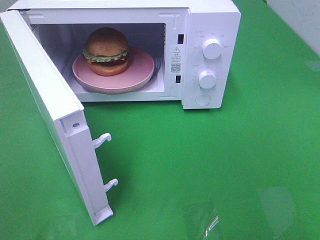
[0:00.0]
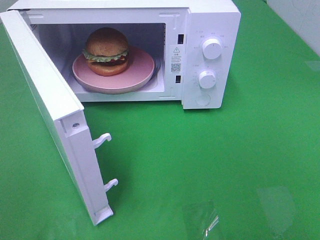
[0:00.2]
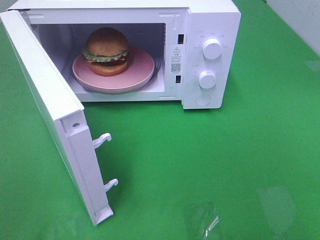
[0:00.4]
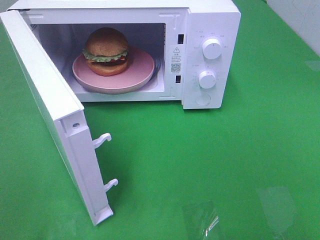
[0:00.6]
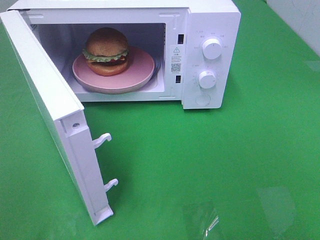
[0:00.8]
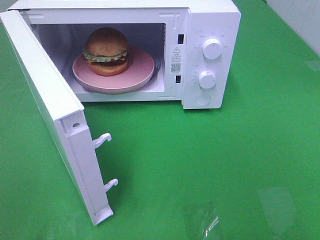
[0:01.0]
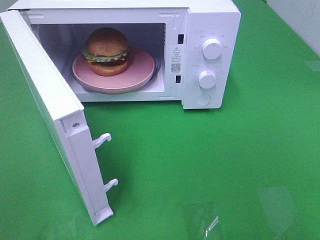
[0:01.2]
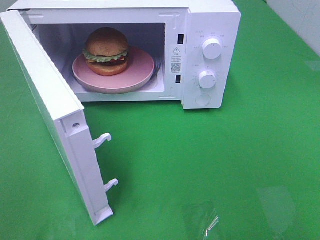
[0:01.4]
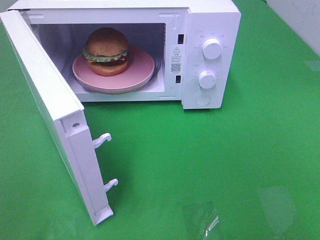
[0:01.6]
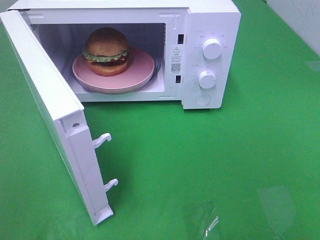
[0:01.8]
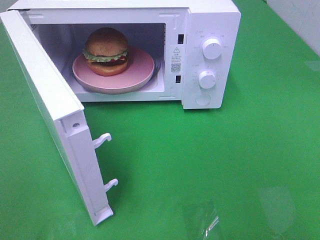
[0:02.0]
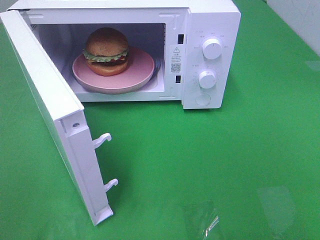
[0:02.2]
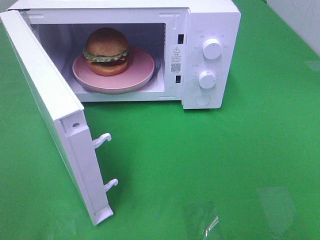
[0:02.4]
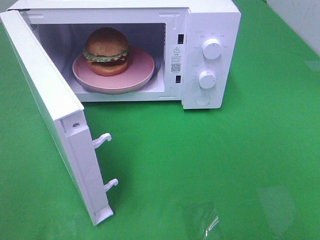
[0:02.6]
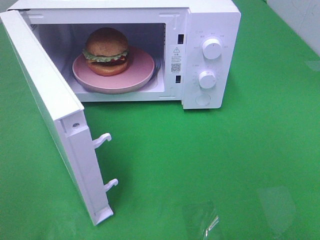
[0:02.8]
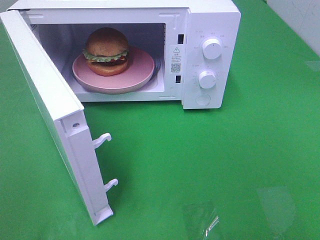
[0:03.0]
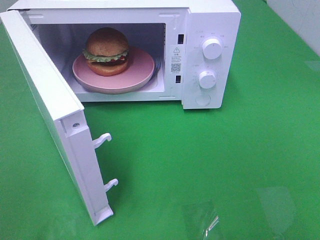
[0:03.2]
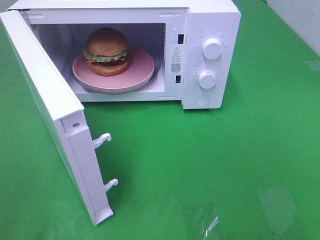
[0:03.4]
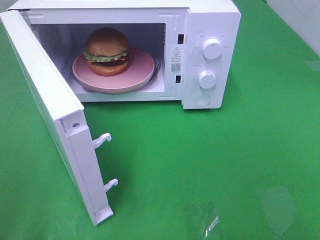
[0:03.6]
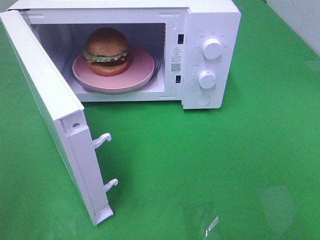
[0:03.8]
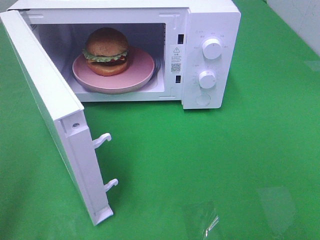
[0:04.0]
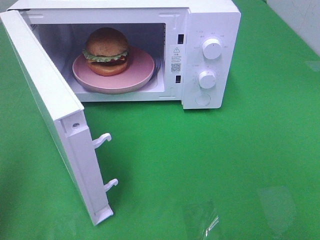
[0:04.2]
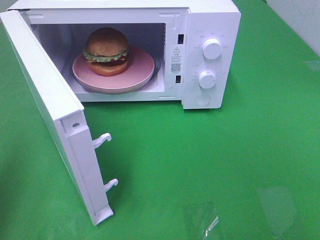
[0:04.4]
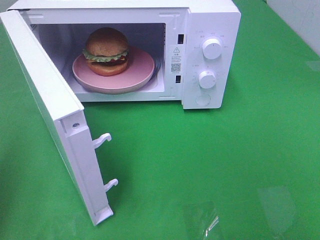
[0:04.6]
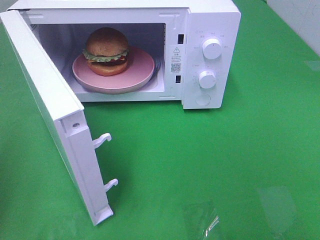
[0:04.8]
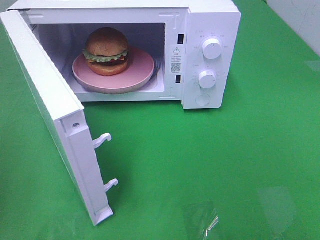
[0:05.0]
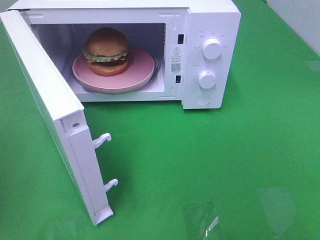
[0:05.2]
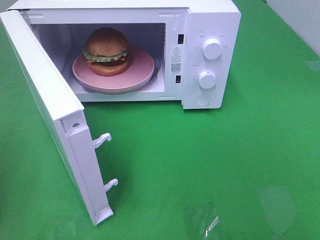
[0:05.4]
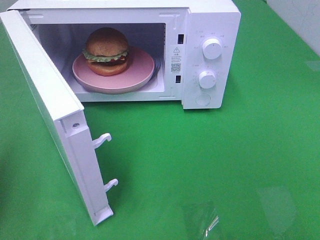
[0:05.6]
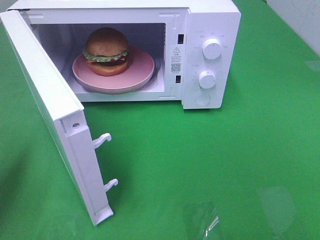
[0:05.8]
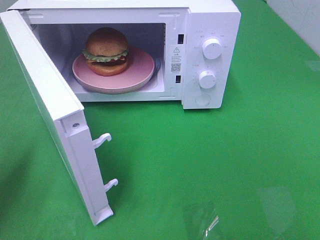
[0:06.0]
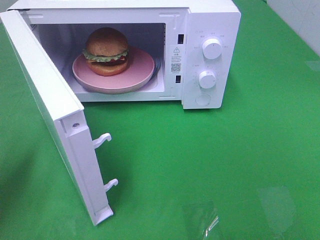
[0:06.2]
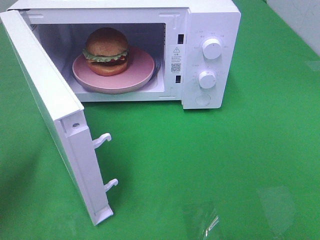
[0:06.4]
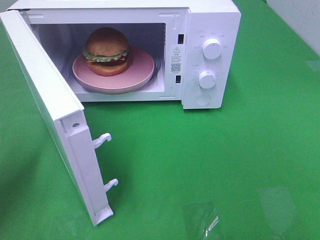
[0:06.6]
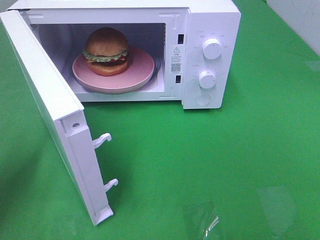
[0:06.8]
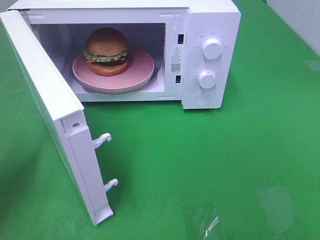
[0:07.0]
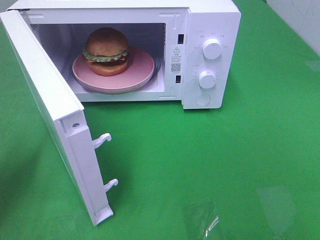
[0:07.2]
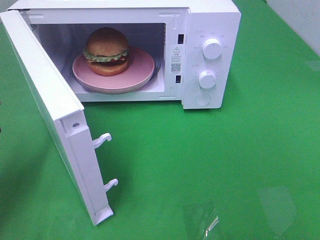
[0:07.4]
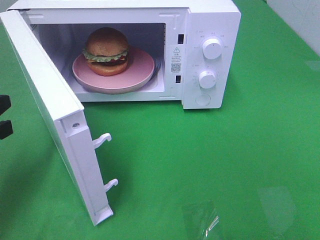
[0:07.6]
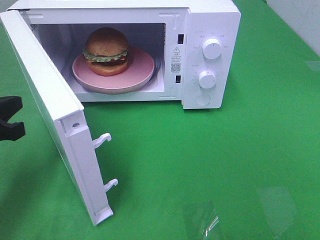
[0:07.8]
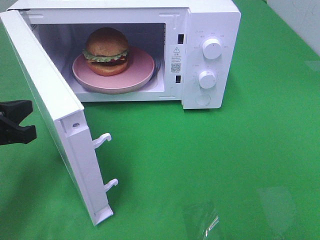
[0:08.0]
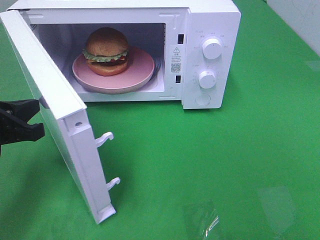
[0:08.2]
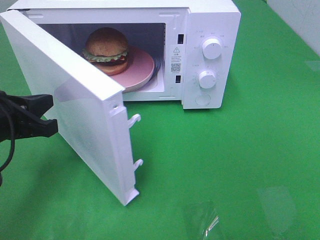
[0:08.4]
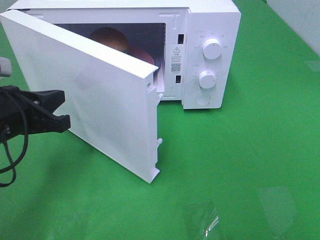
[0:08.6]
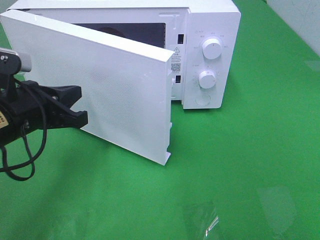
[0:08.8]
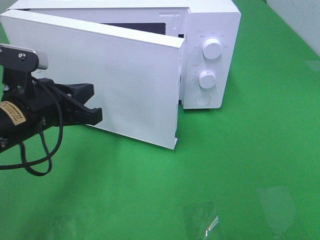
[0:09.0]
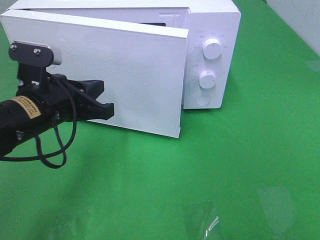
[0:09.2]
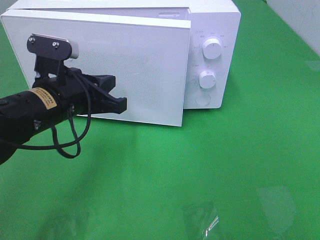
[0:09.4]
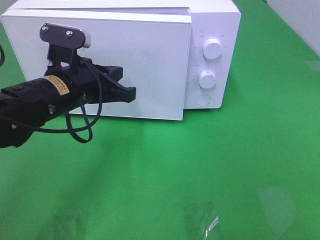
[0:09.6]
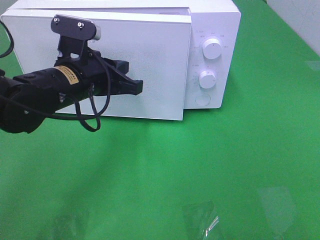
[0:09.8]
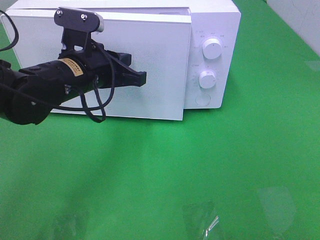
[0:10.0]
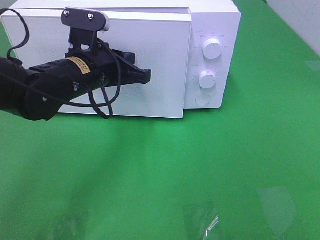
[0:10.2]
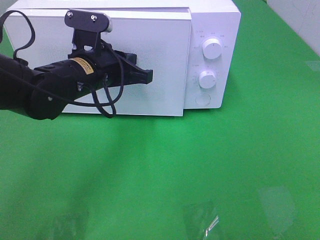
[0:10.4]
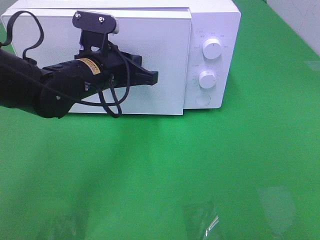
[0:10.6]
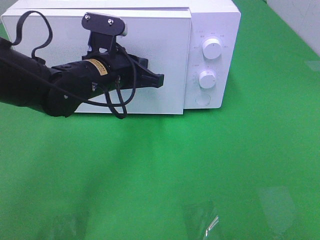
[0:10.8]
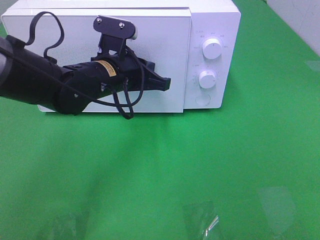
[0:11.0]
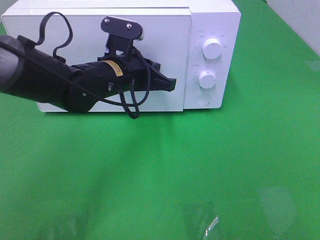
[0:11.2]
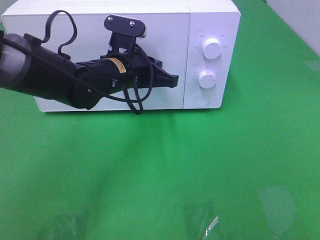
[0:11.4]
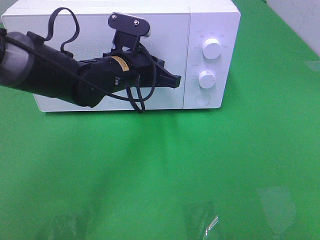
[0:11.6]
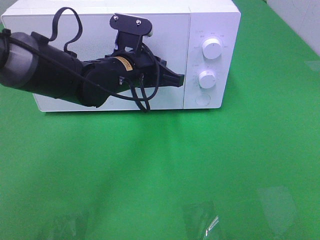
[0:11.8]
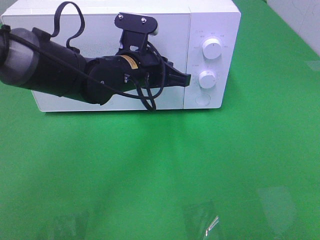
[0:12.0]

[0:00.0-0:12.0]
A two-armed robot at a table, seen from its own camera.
Task of the whole recording: Heat the burger.
Step, 0:00.0 to 0:12.0: Left hand: close the microwave door.
0:01.6 to 0:03.0: Both grippers stay put.
0:03.0 to 0:04.4: The left gripper travels forward by about 10 cm, and closes up.
0:06.0 to 0:07.6: The grippers make only small movements.
0:07.6 to 0:09.0: The left gripper goes approximately 10 cm to the right.
0:09.0 to 0:10.4: The left gripper goes some 10 cm forward and to the right.
0:10.4 to 0:12.0: The left gripper goes about 5 cm to the right.

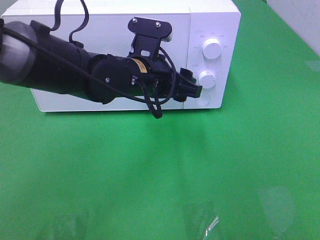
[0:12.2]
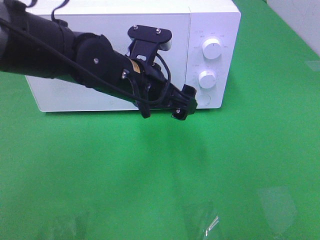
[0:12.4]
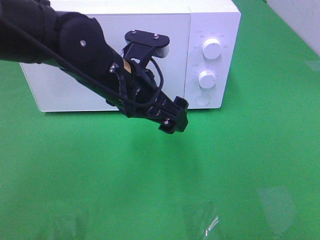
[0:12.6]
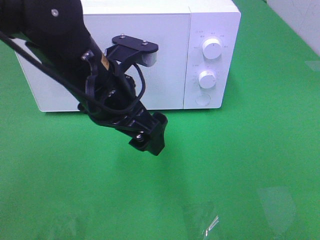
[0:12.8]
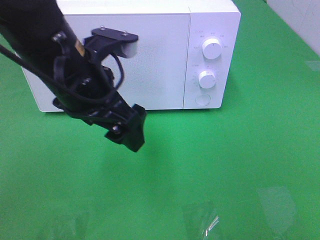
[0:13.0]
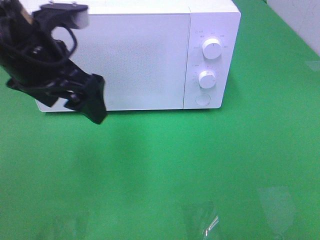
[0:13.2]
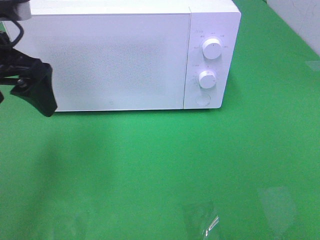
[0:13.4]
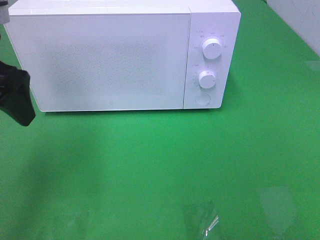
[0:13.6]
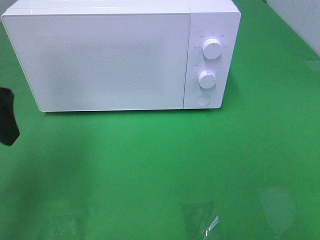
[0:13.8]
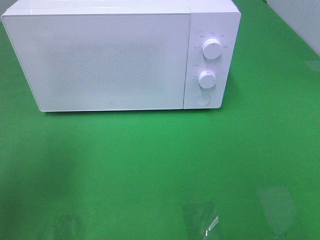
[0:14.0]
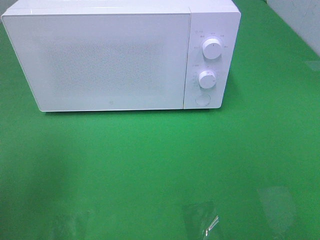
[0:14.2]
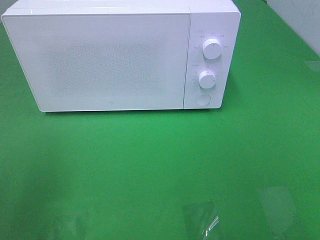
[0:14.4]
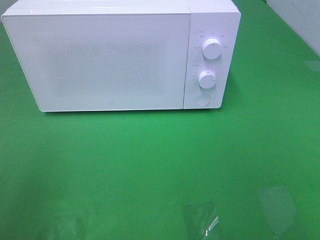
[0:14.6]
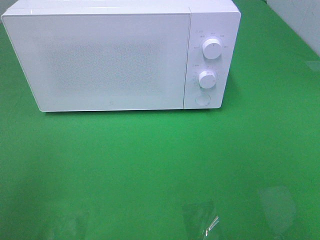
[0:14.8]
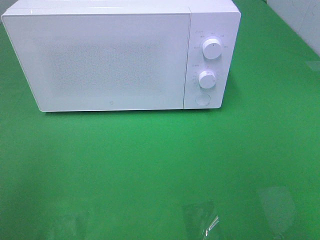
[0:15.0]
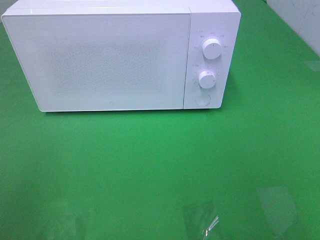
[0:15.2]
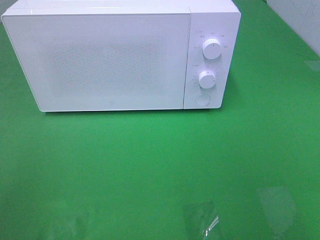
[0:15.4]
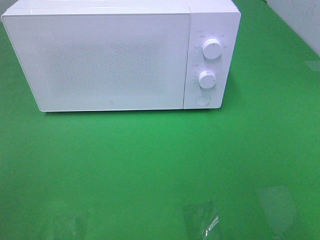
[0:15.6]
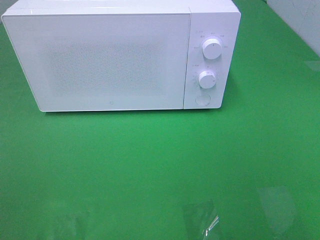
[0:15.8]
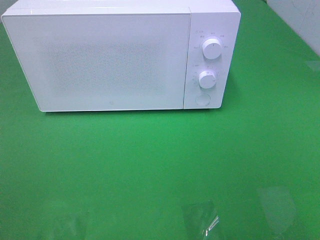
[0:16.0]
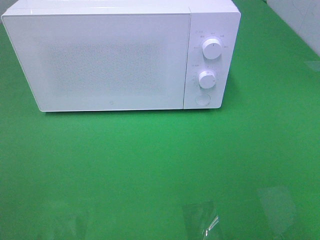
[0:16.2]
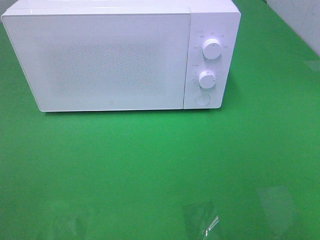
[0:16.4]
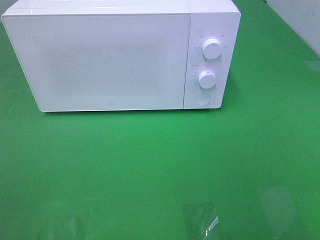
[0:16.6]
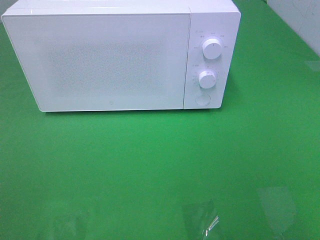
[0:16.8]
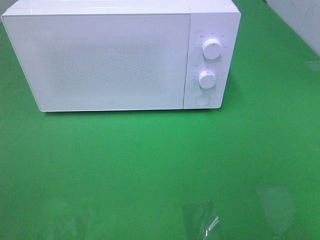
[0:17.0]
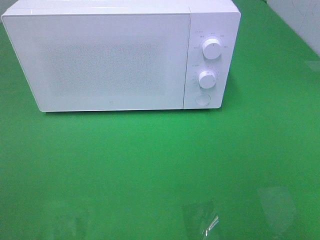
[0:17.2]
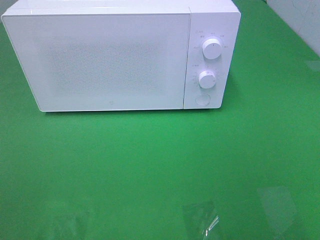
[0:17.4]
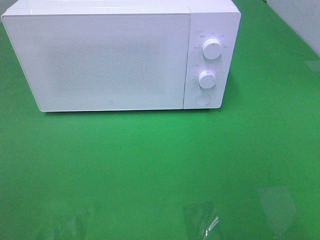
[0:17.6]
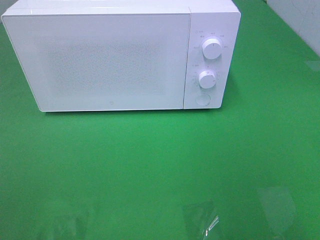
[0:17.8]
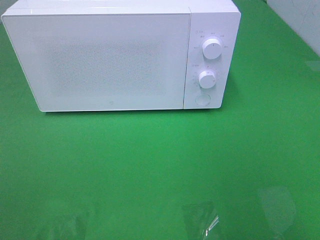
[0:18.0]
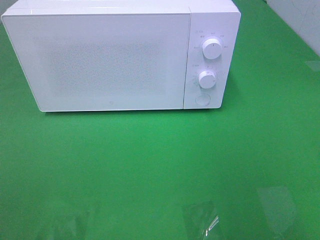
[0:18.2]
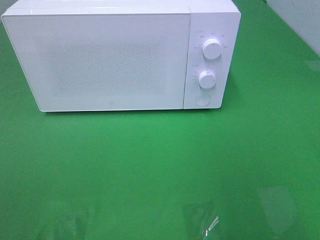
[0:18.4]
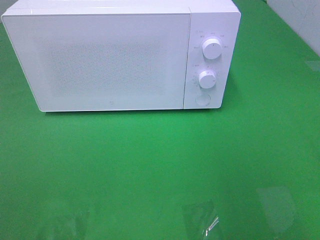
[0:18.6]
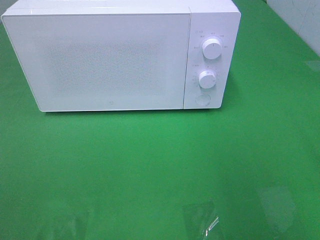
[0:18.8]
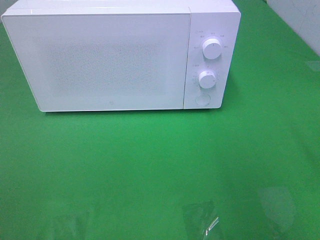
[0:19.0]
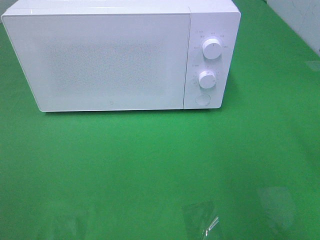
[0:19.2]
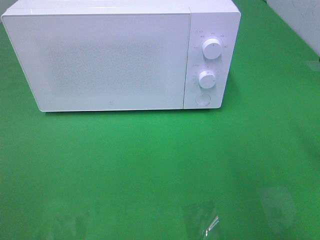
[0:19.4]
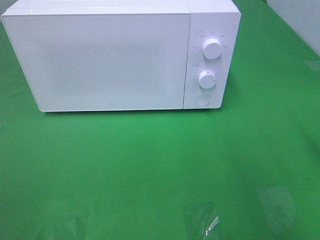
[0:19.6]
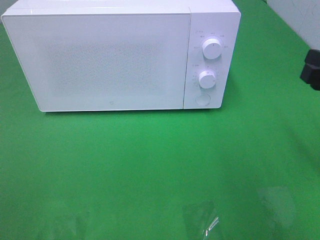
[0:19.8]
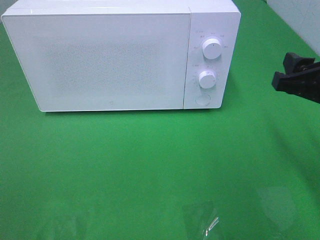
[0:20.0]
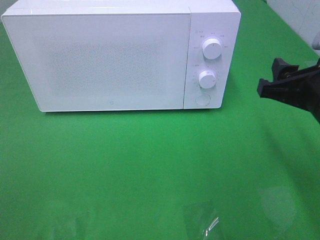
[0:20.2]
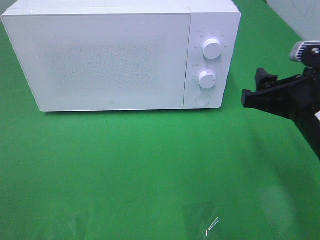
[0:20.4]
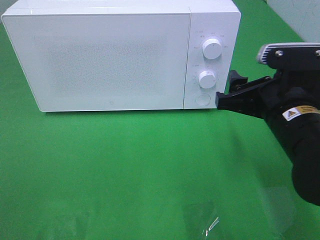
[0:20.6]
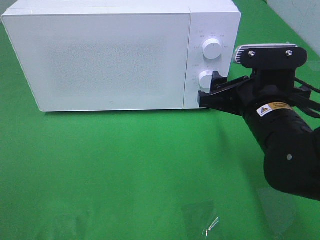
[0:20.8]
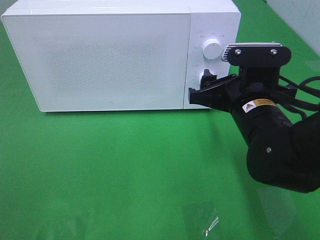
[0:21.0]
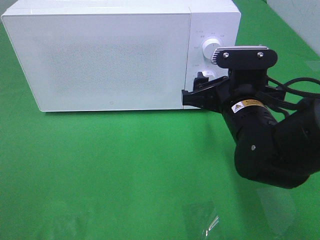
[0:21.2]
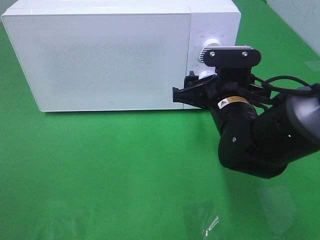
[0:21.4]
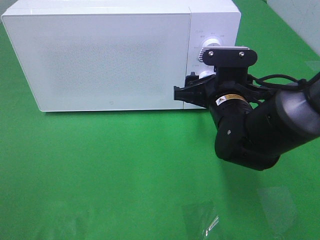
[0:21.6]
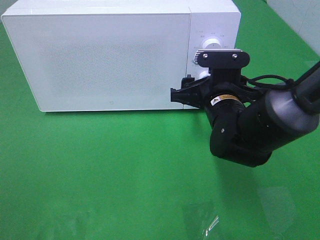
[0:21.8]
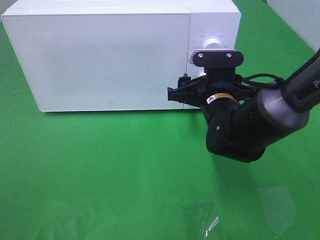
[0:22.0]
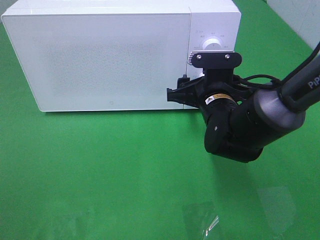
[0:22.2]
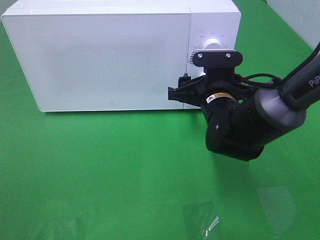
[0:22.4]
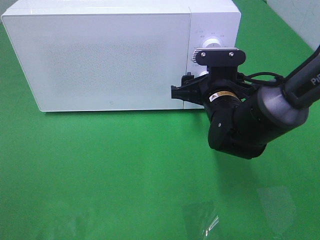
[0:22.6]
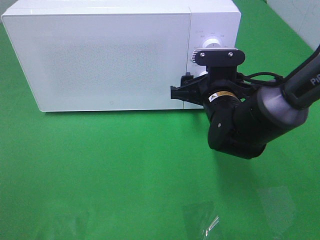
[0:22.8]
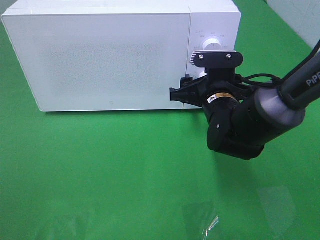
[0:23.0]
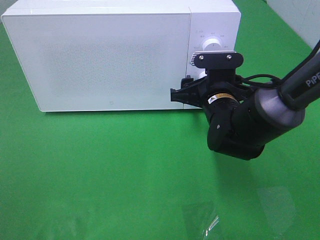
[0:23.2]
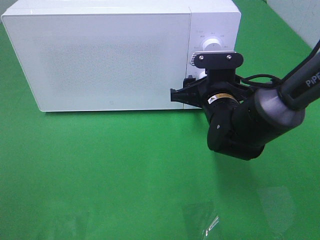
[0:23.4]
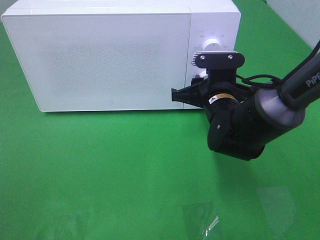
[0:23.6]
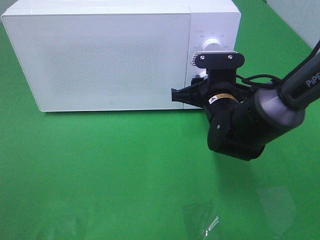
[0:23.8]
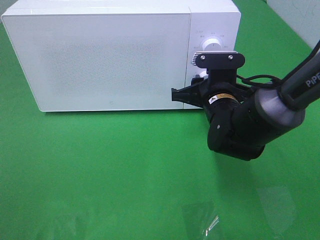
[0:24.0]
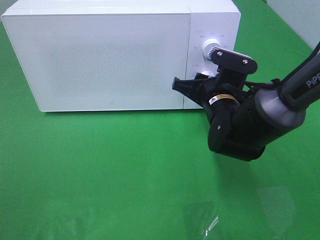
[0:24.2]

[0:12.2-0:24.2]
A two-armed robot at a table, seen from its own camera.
Task of the whole recording: Heat the burger.
0:12.2 to 0:13.8: The left gripper travels to the left, upward and backward by approximately 25 cm.
0:13.8 to 0:15.2: The left gripper travels backward by some 15 cm.
0:18.2 to 0:19.8: The right gripper travels downward and forward by approximately 15 cm.
0:19.8 to 0:21.2: The right gripper travels to the left, downward and forward by roughly 15 cm.
0:21.2 to 0:22.6: The right gripper goes roughly 5 cm forward.
0:22.6 to 0:24.2: The right gripper closes up.
